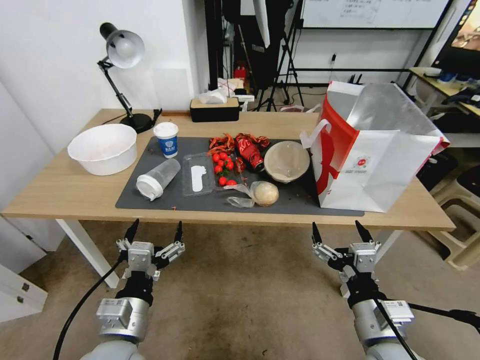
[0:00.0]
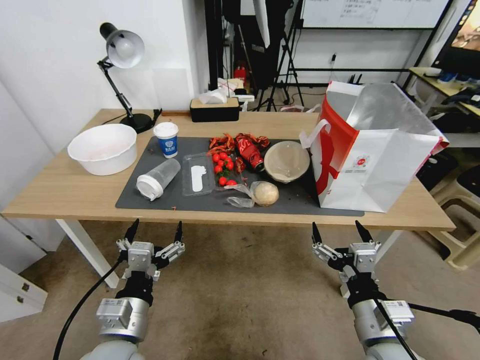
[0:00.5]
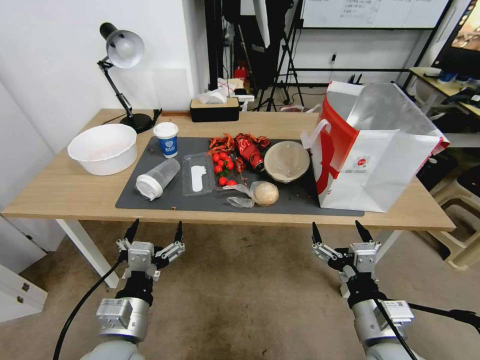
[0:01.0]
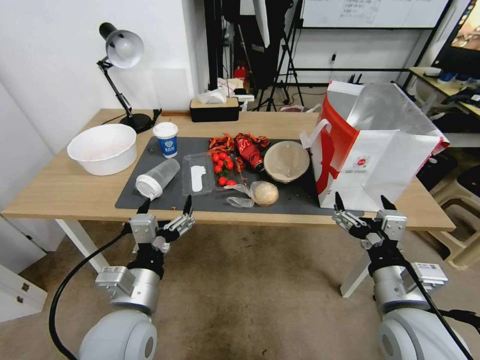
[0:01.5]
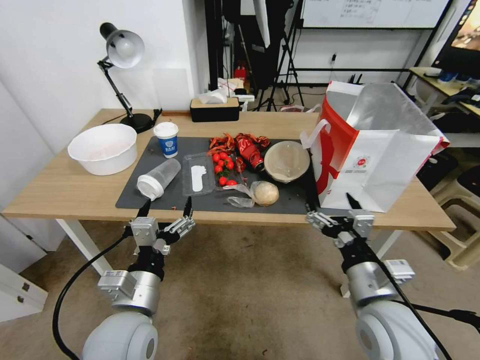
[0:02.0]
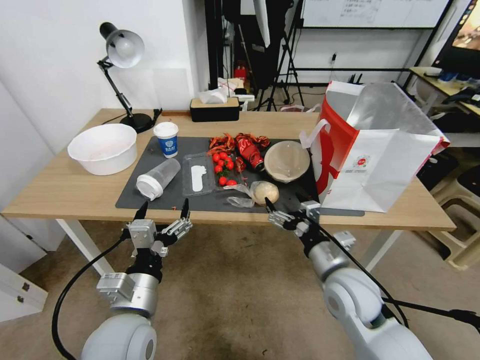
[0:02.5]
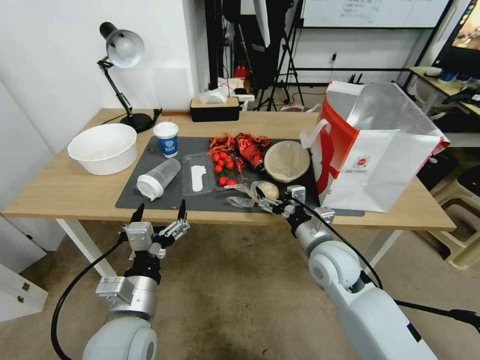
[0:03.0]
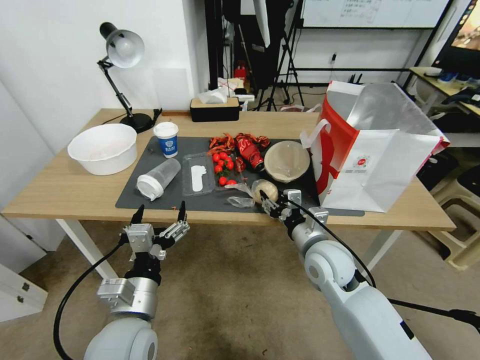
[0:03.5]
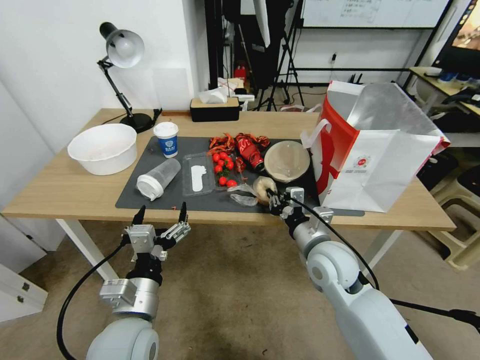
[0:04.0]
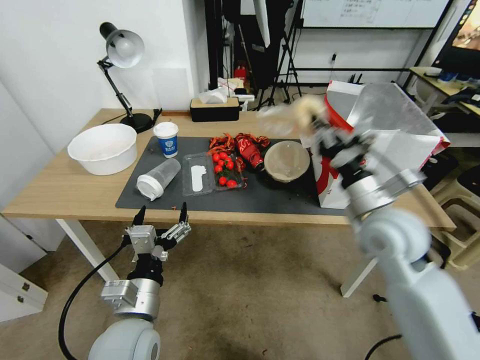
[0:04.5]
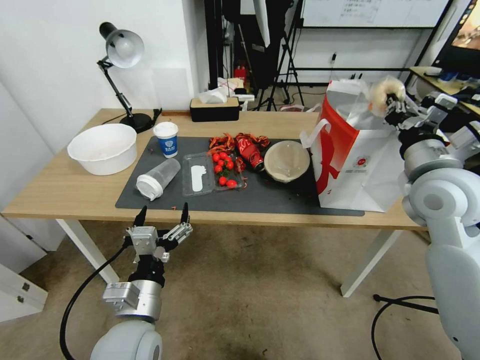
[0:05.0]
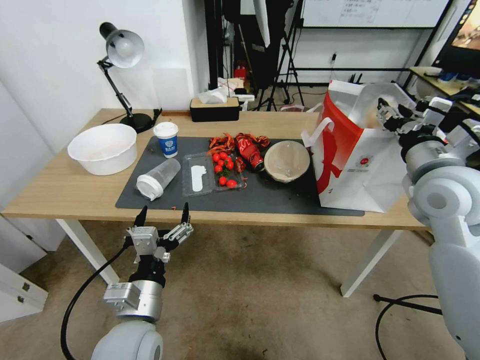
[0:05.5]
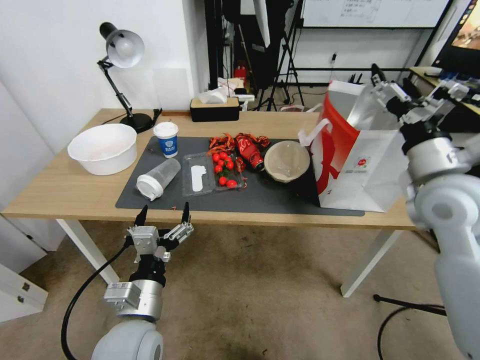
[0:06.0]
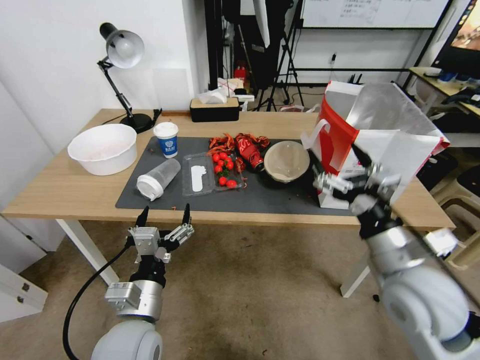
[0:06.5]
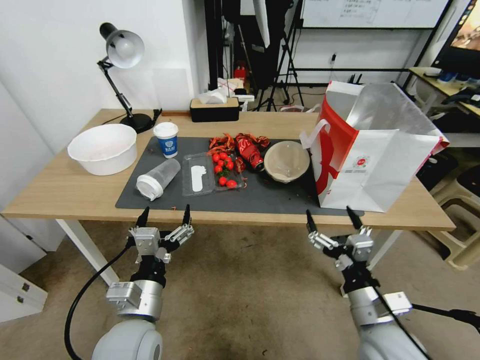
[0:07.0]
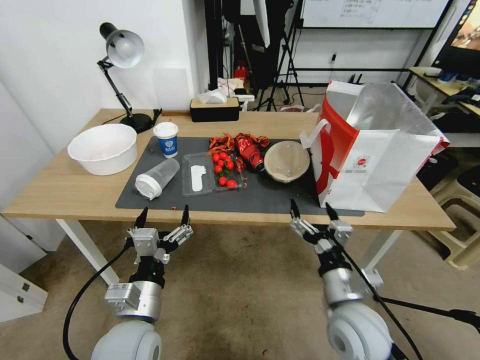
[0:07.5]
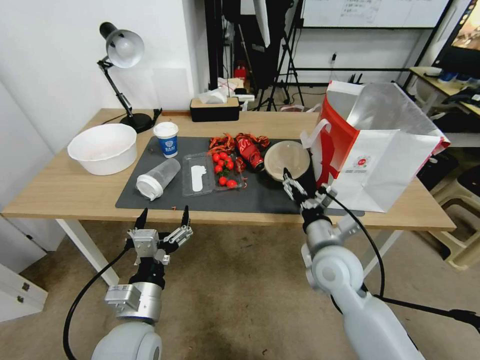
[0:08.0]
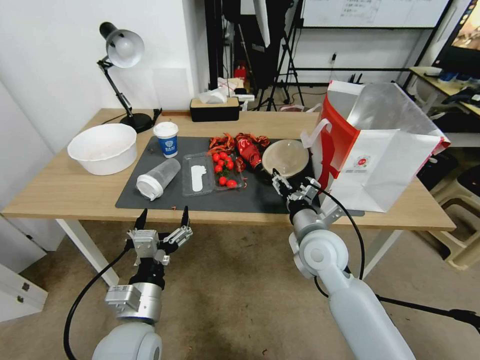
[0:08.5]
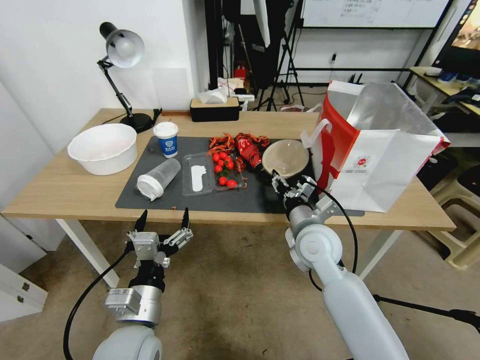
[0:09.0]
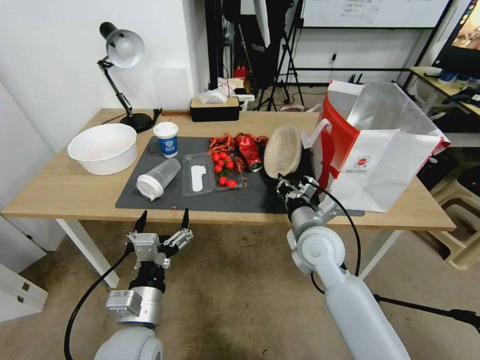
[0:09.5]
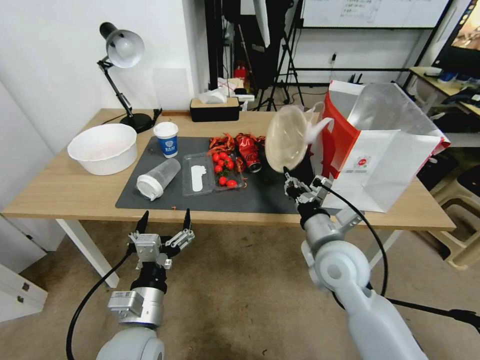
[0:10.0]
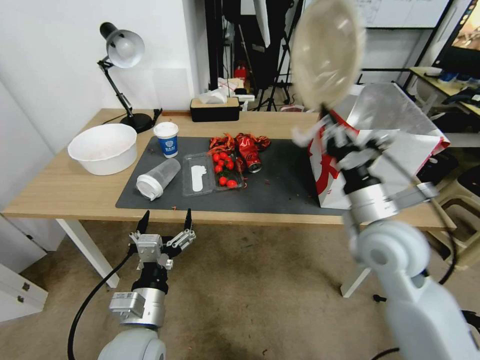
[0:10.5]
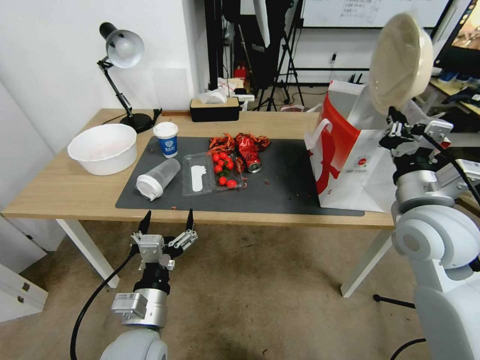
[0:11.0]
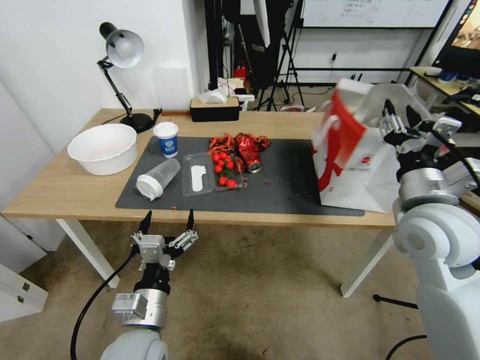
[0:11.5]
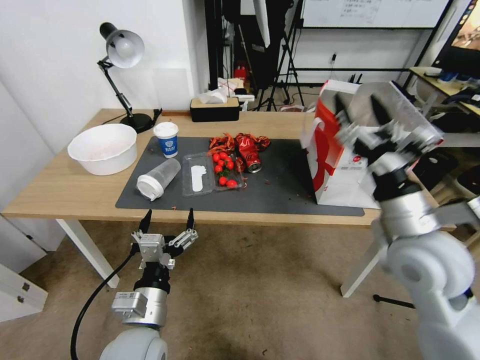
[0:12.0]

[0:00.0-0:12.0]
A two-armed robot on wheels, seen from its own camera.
0:02.0 to 0:04.0: The right gripper travels forward by approximately 15 cm, and closes up.
0:04.0 to 0:06.0: The right gripper heads upward and to the right, covering about 20 cm, and opens.
0:06.0 to 0:08.0: The right gripper goes some 25 cm downward and to the left.
0:08.0 to 0:10.0: The right gripper closes up.
0:10.0 to 0:12.0: The right gripper travels upward and to the right by some 15 cm, and opens.

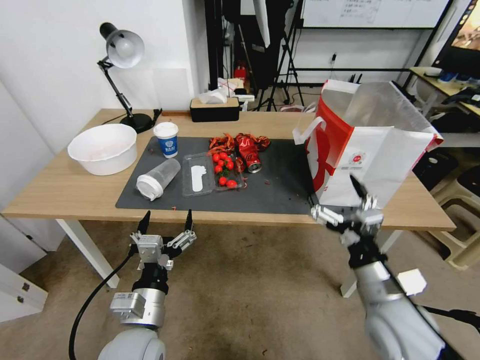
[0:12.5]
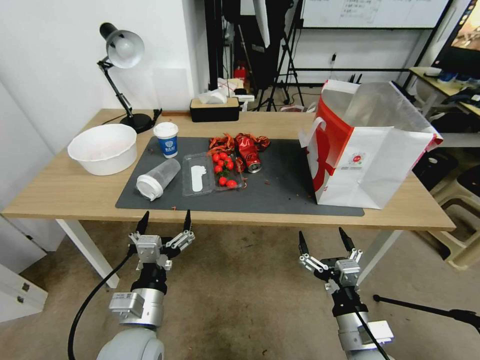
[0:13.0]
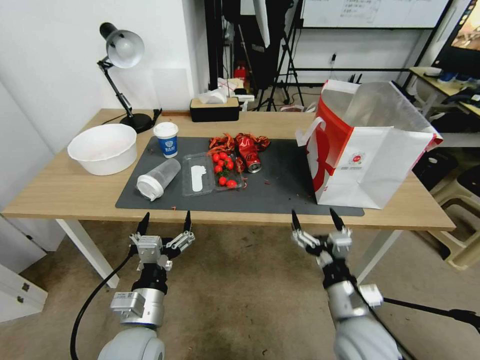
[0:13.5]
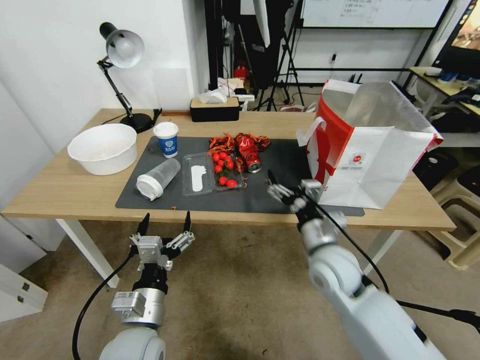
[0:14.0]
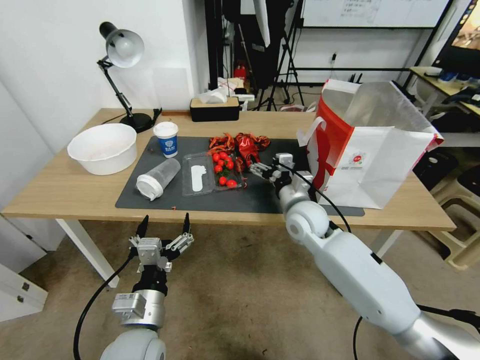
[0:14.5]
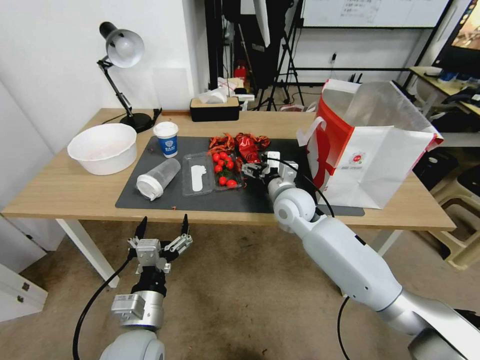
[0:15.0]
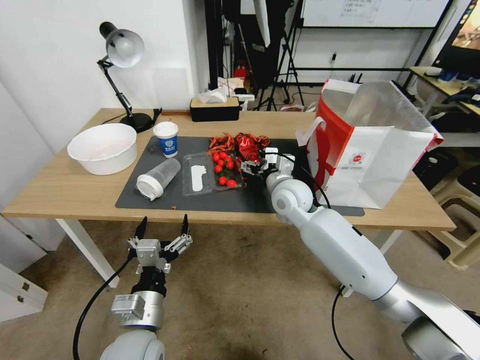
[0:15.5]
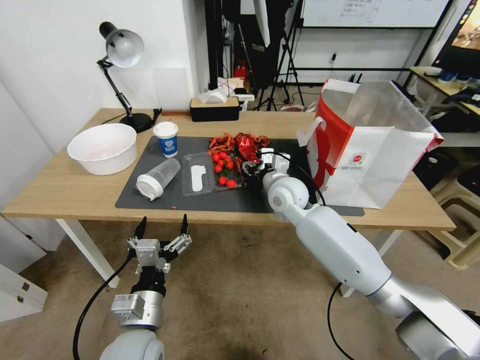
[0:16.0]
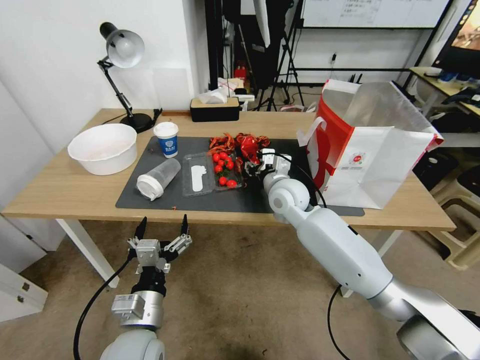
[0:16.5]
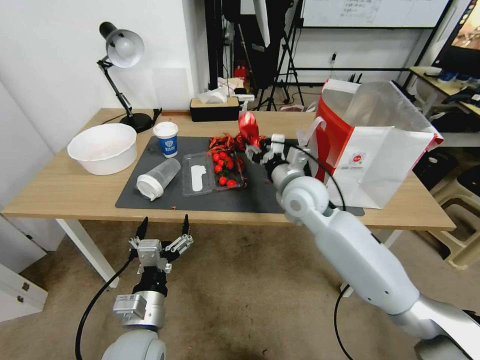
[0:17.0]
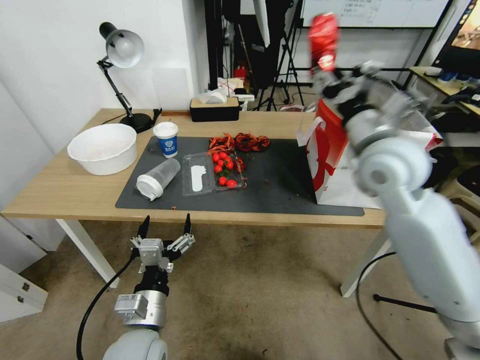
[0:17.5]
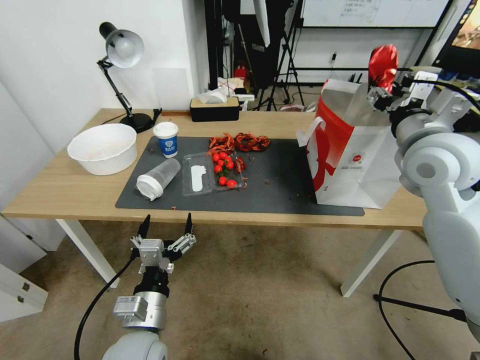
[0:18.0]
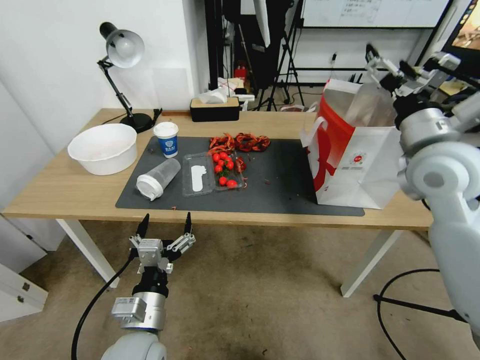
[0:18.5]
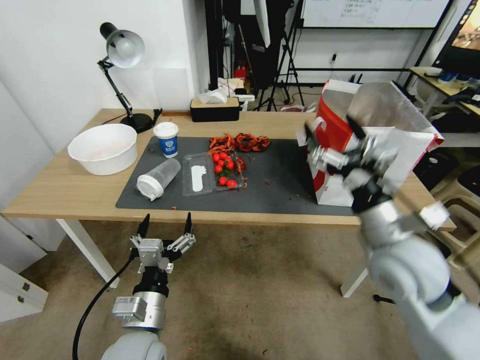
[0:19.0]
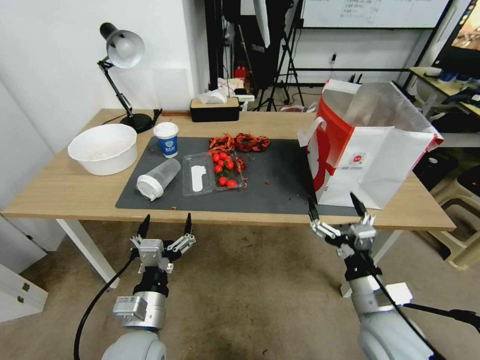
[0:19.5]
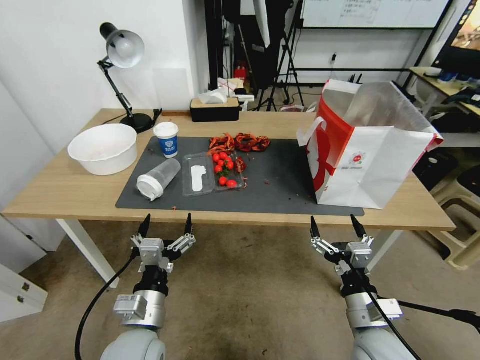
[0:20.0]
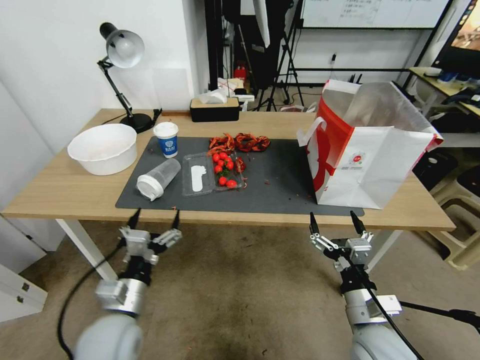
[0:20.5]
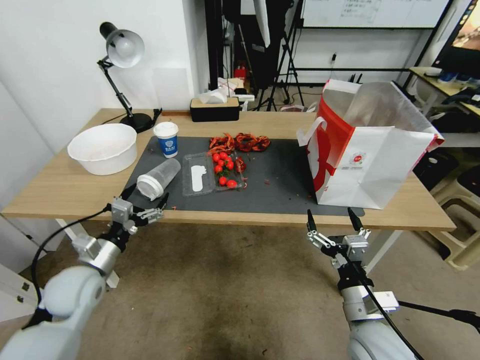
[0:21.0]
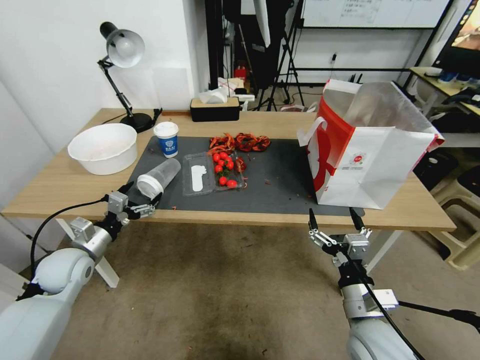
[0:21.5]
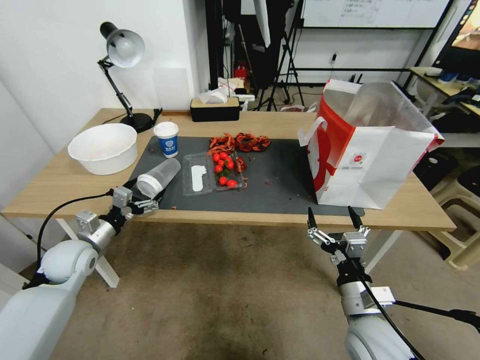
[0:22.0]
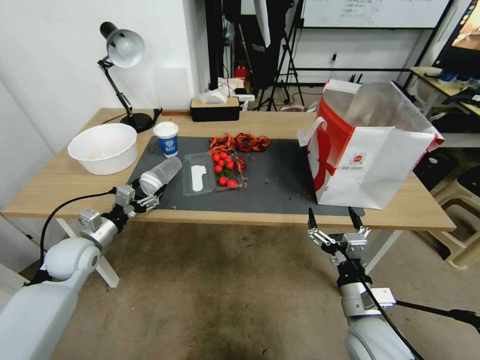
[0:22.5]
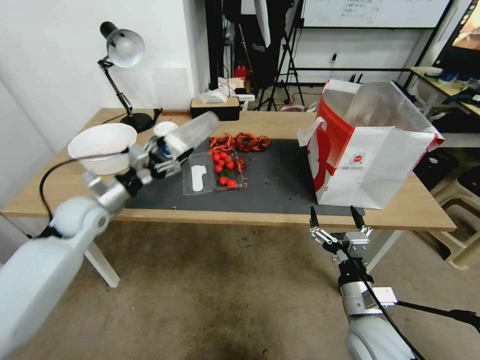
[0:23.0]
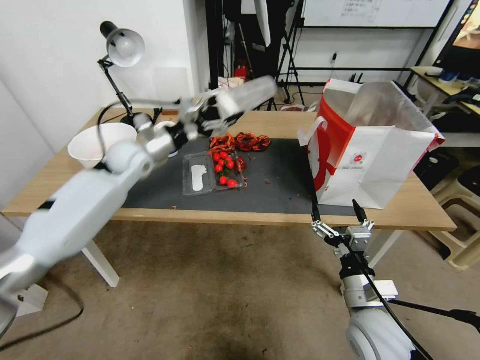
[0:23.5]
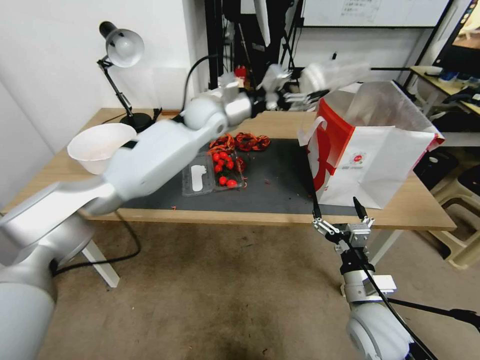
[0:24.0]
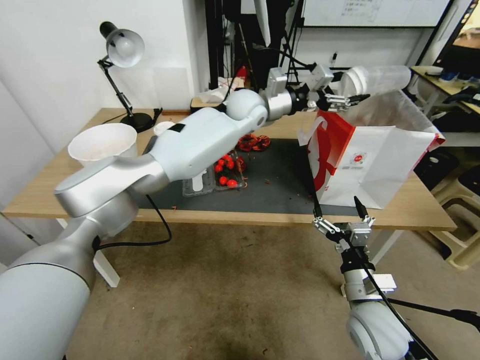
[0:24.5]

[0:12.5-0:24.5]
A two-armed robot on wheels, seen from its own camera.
0:12.5 to 0:14.5: The right gripper travels forward and to the left by roughly 25 cm.
0:14.5 to 0:16.5: The right gripper ends up roughly 5 cm from where it was, and closes its fingers.
0:16.5 to 0:18.5: The right gripper is displaced to the right, upward and backward by some 30 cm, and opens its fingers.
0:18.5 to 0:20.5: The right gripper shifts some 35 cm downward and backward, while the left gripper moves to the left, about 5 cm.
0:20.5 to 0:22.5: The left gripper goes roughly 20 cm forward and to the left.
0:22.5 to 0:24.5: The left gripper moves to the right, forward and upward, roughly 50 cm.

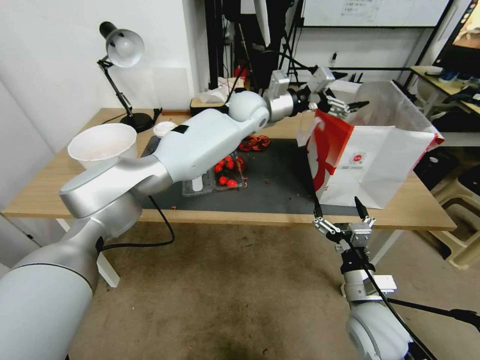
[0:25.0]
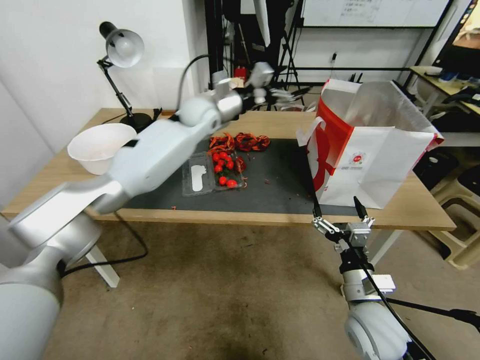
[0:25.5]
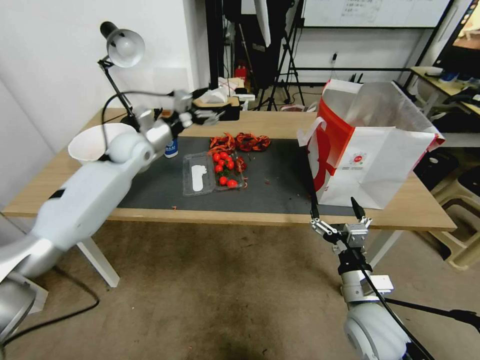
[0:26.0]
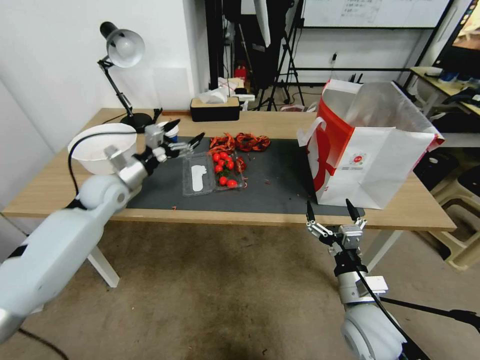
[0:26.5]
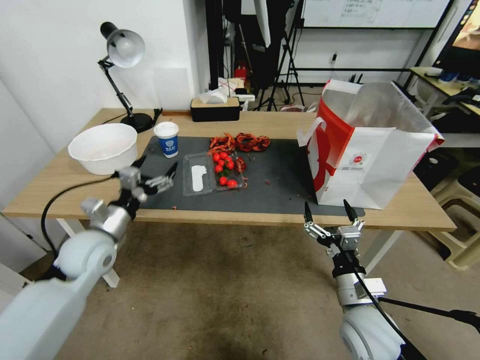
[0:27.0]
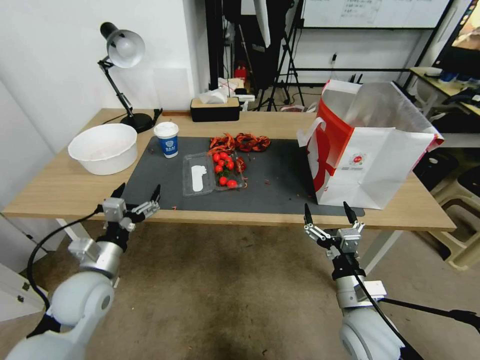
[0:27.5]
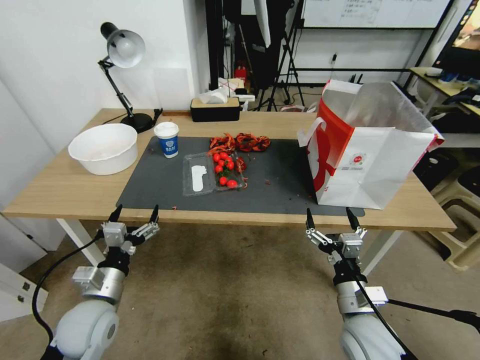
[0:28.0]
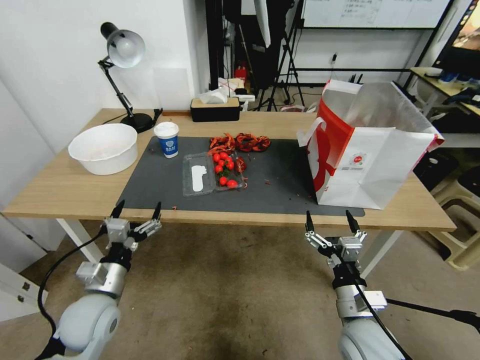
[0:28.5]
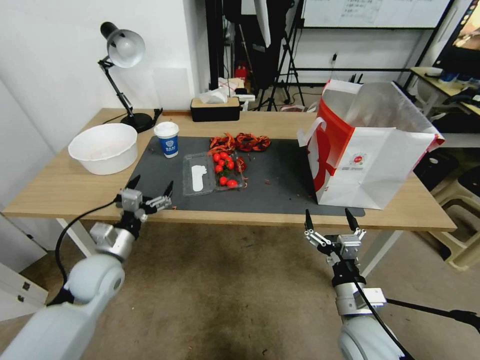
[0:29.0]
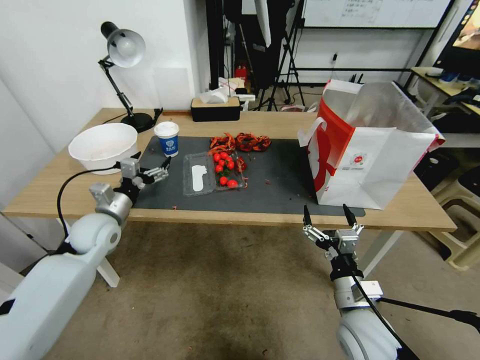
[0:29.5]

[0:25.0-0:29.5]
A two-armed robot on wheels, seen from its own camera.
0:25.0 to 0:27.0: The left gripper is displaced to the left, backward and downward by about 50 cm.
0:27.0 to 0:29.5: The left gripper moves about 10 cm backward and comes back.
